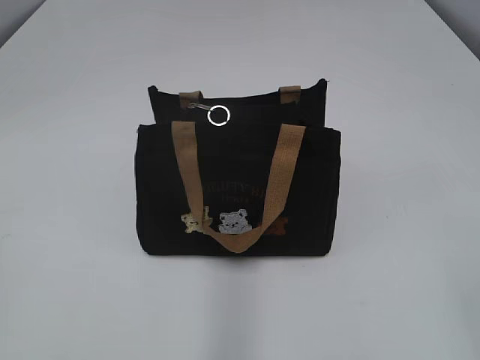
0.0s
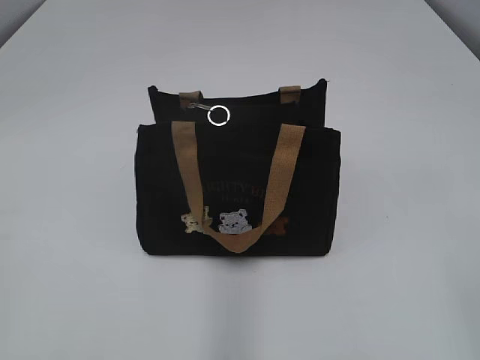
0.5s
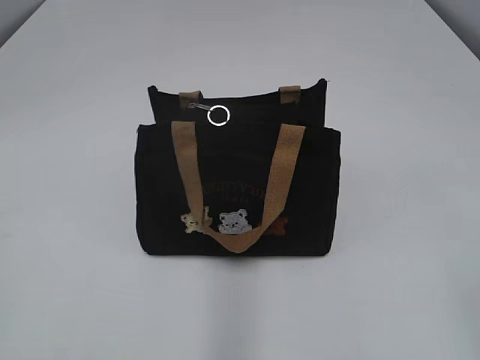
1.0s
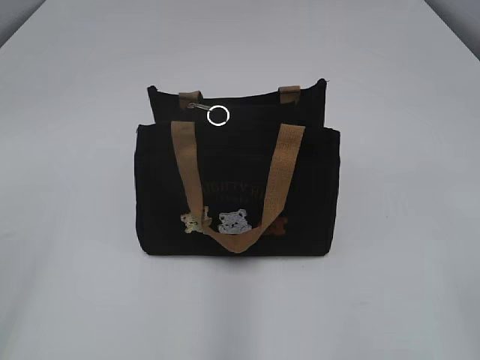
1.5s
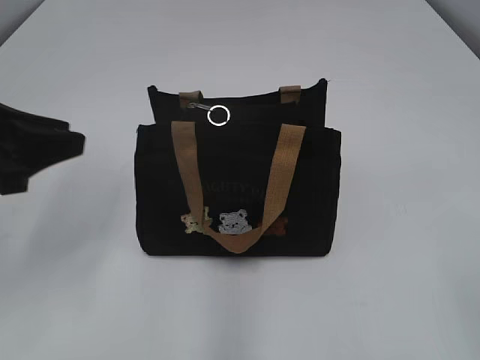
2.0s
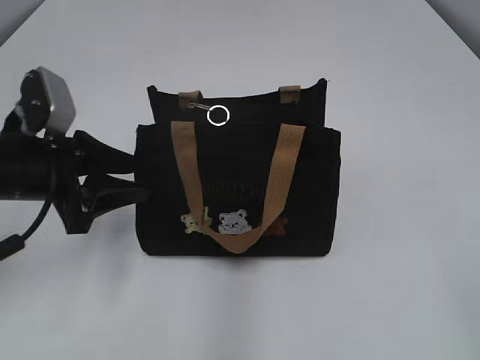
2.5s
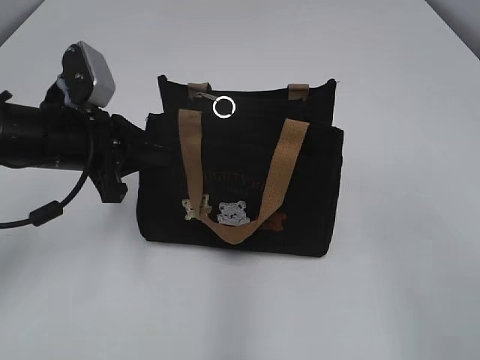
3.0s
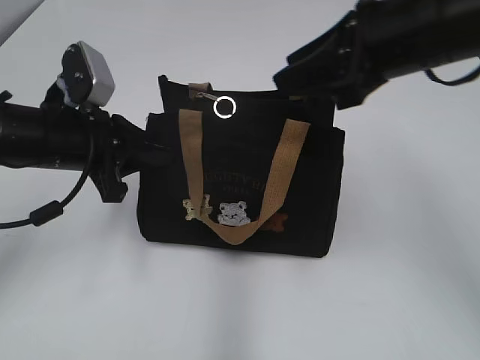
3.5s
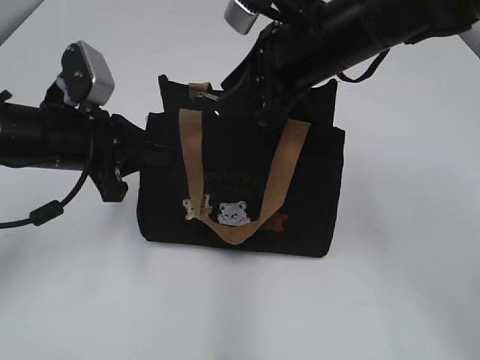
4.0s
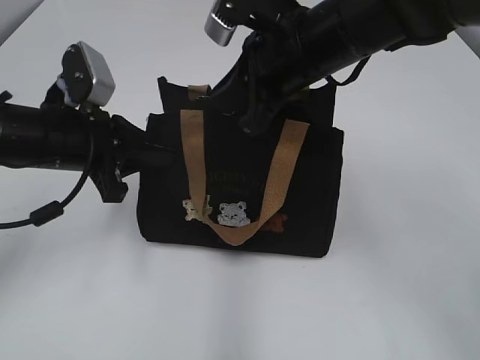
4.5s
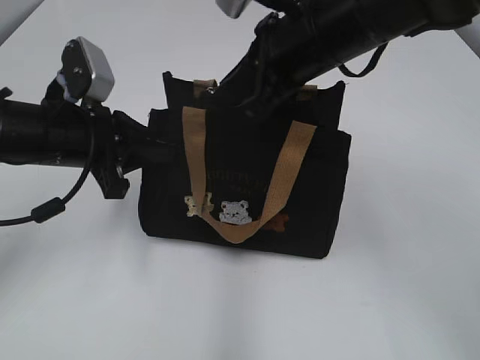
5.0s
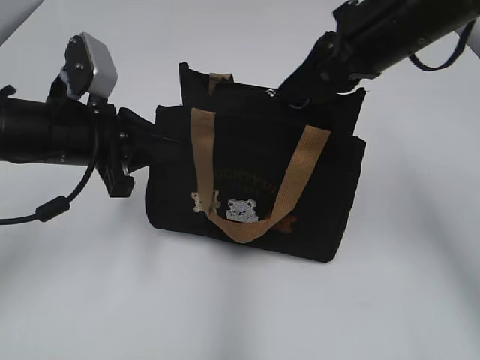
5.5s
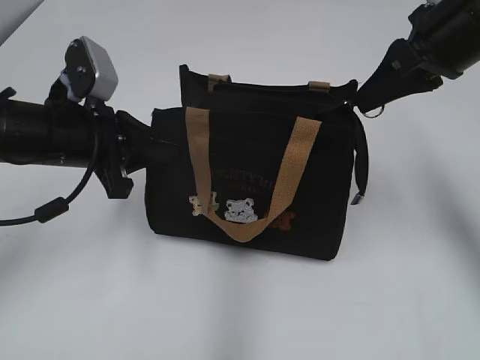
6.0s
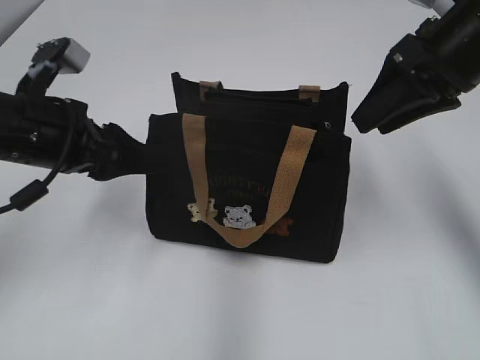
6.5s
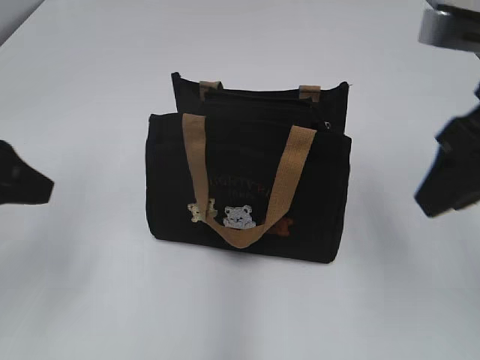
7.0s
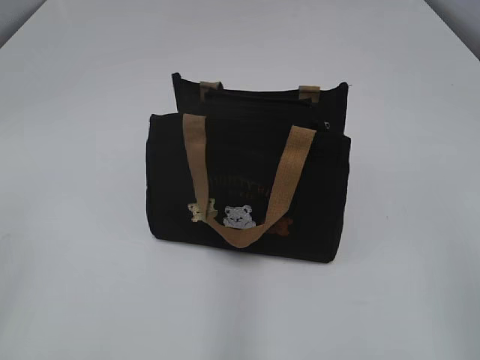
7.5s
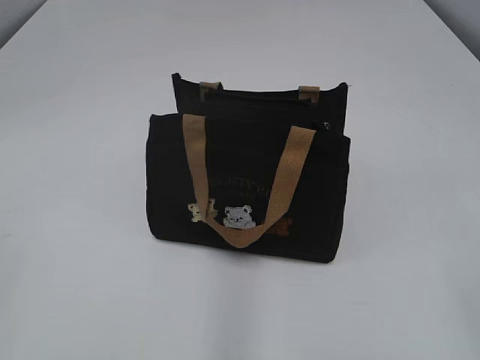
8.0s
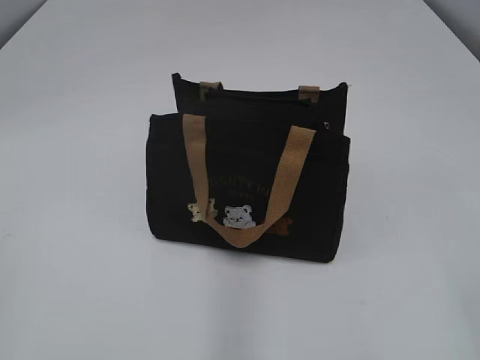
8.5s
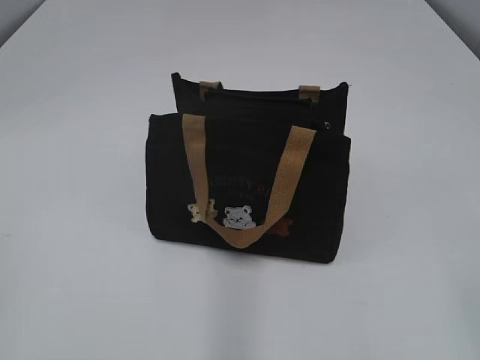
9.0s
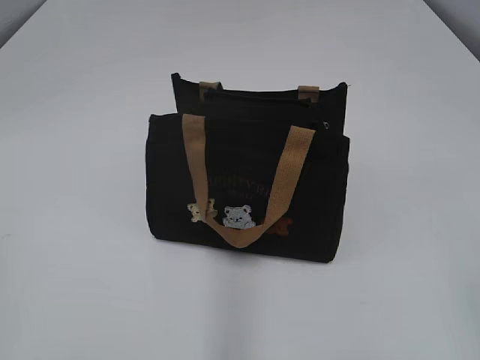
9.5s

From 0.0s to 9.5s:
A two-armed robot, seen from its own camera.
Step, from 0.0s to 6.0s: Pull open the zipper with your right hand.
From 2.0s to 4.0s: The right gripper shifts approximately 40 cm forward and to the left, while the left gripper shifts approximately 10 cm forward, to the right and downward, and closes its fingers.
From 4.0s to 5.5s: The right gripper shifts roughly 5 cm to the right, and closes its fingers.
From 5.5s to 7.5s: The right gripper shifts some 30 cm backward, and opens, while the left gripper heads backward, to the left and upward, covering some 30 cm, and opens up.
